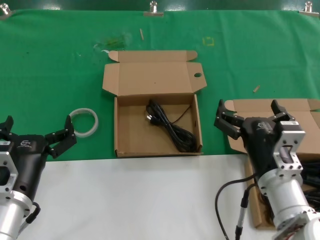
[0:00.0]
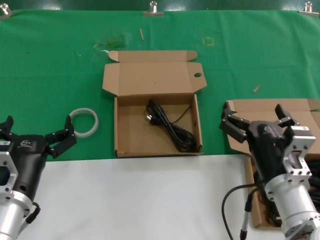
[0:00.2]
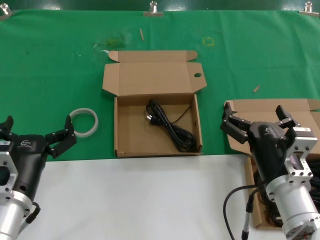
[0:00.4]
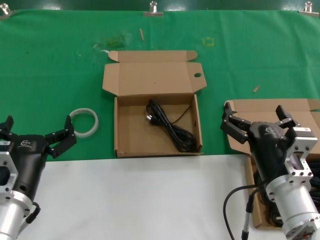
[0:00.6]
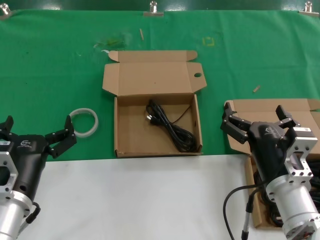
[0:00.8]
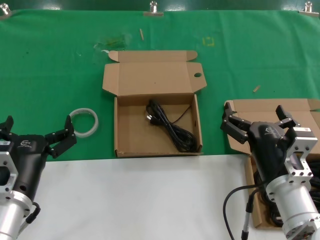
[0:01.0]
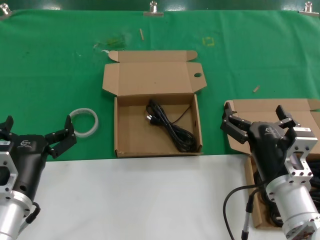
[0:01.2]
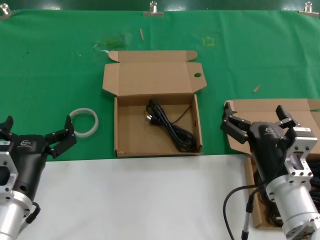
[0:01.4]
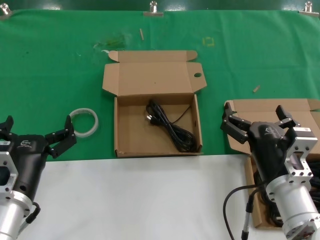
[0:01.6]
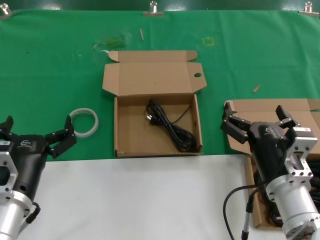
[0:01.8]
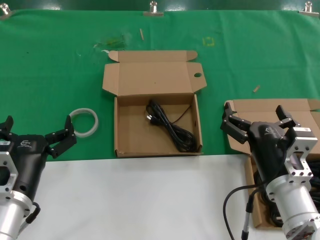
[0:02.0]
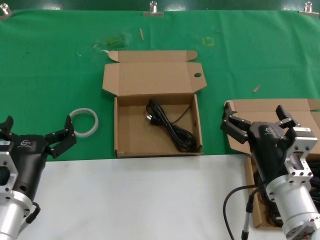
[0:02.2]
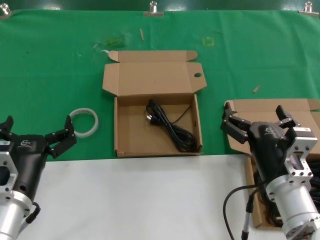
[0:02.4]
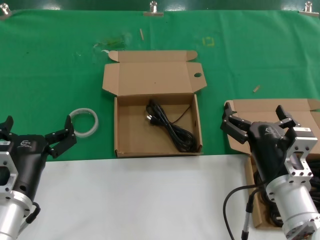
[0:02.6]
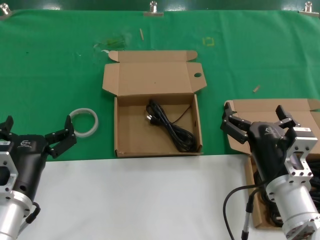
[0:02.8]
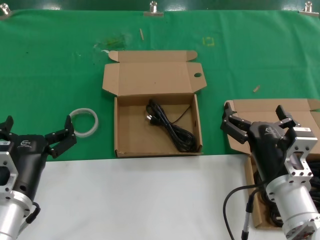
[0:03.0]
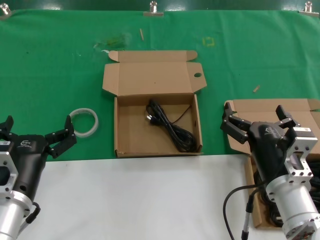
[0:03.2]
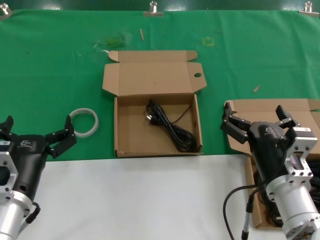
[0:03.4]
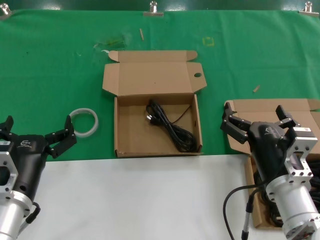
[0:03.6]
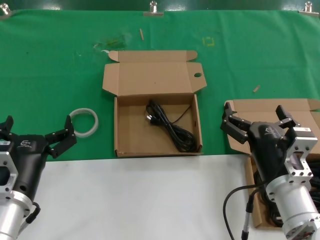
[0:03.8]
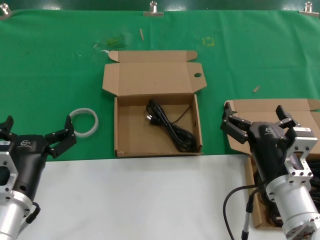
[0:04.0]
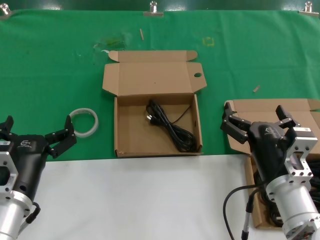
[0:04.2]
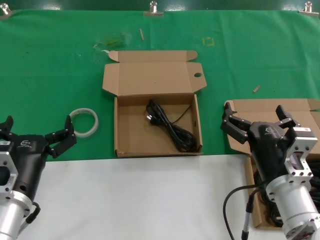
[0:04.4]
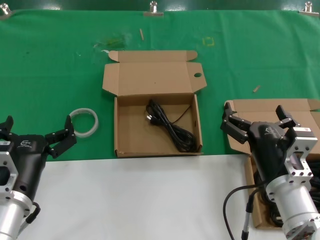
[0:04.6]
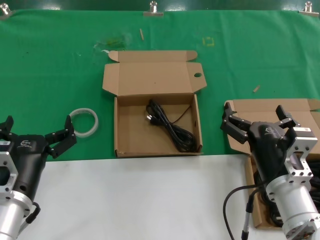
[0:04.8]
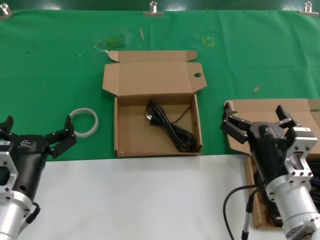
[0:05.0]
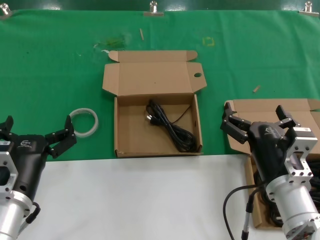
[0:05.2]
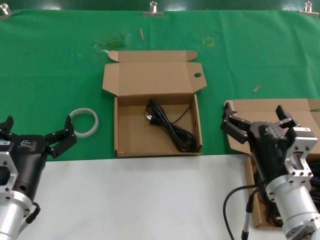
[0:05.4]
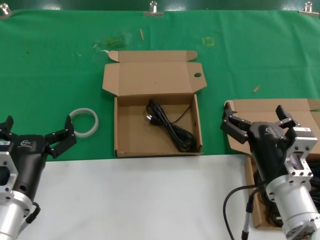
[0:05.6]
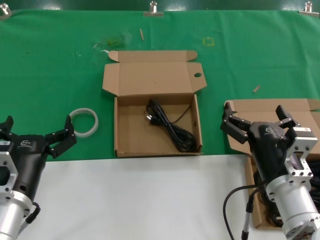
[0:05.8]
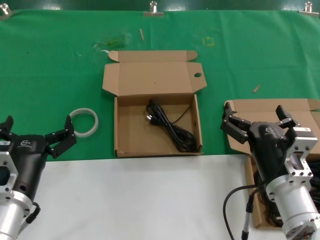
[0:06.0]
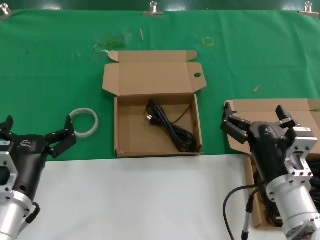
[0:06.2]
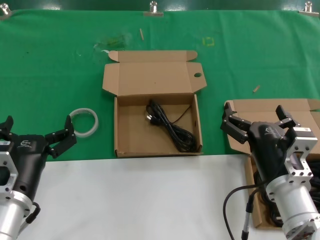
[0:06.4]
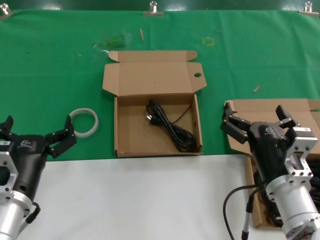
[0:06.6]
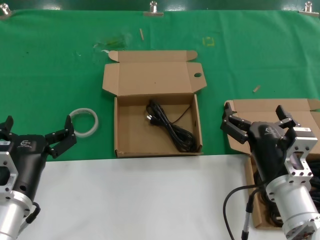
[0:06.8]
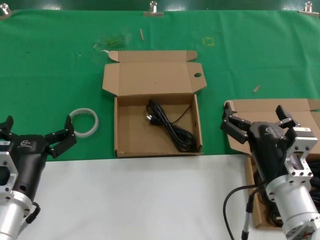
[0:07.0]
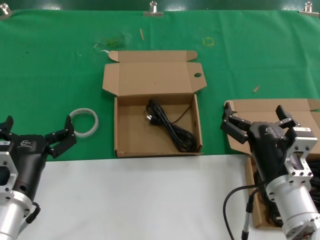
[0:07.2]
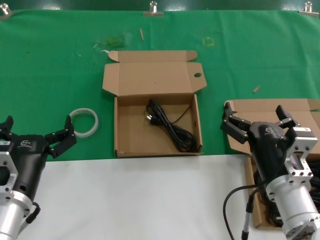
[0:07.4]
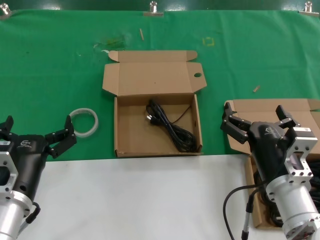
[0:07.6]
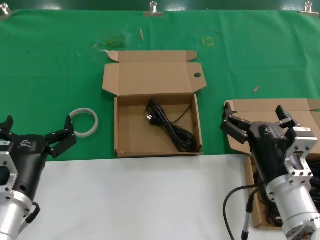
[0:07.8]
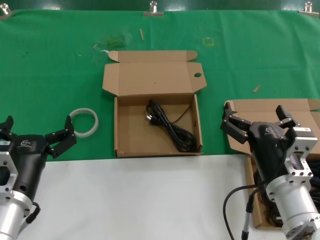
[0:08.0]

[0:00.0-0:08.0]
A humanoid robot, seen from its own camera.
Task of the whole recording: take the parts from the box containing them and put them into an empty box.
0.0 to 1.6 s: The hands stay close to where they were, moving slightly.
1.6 to 8.0 s: Neither hand changes place.

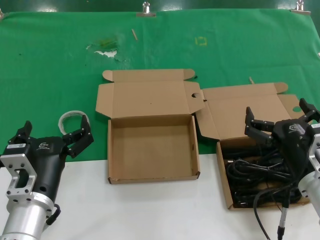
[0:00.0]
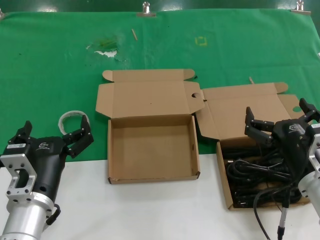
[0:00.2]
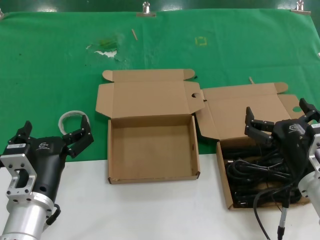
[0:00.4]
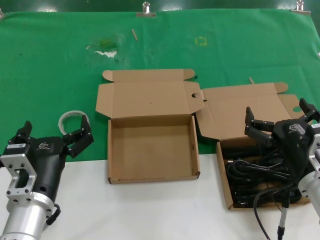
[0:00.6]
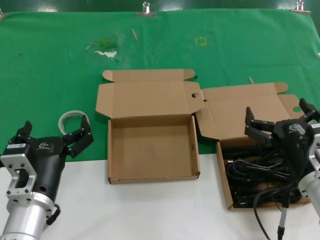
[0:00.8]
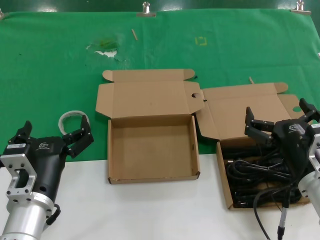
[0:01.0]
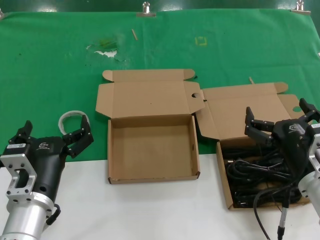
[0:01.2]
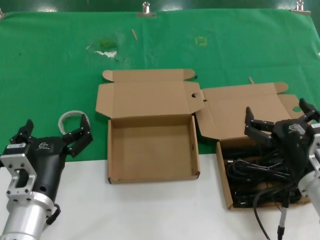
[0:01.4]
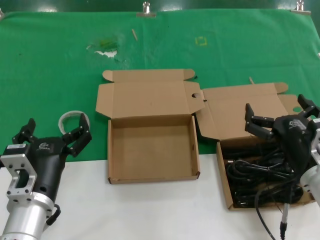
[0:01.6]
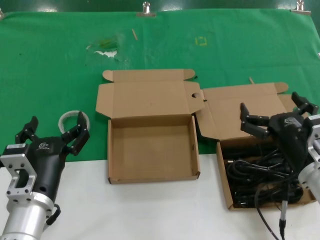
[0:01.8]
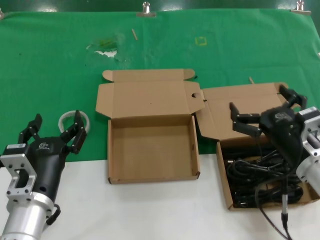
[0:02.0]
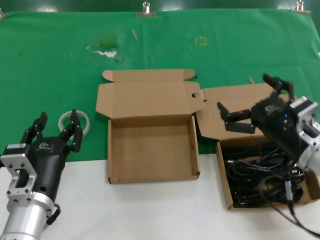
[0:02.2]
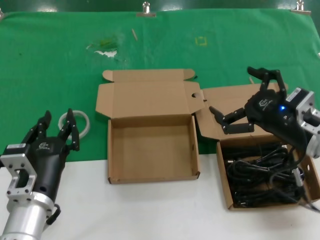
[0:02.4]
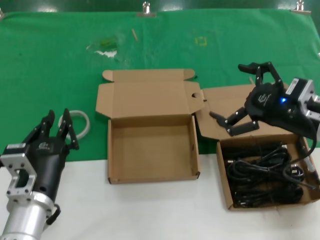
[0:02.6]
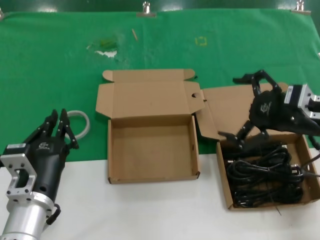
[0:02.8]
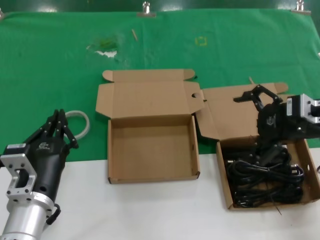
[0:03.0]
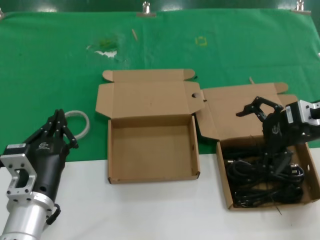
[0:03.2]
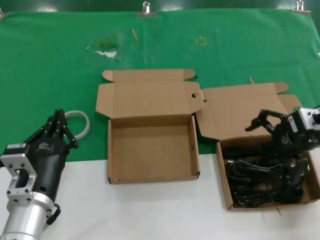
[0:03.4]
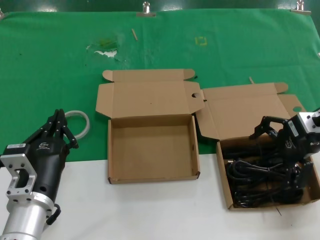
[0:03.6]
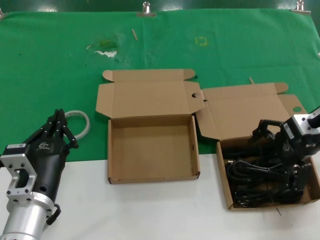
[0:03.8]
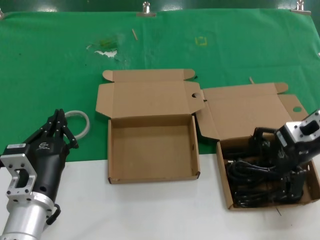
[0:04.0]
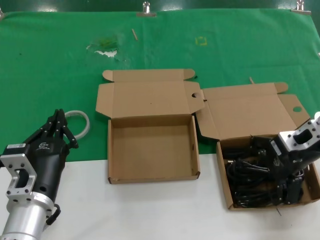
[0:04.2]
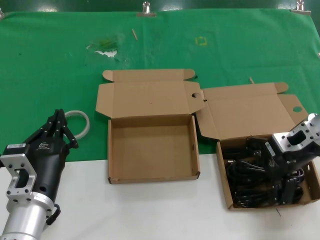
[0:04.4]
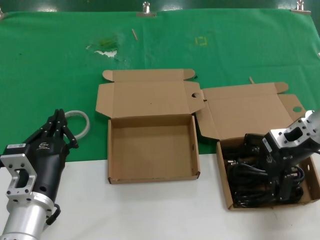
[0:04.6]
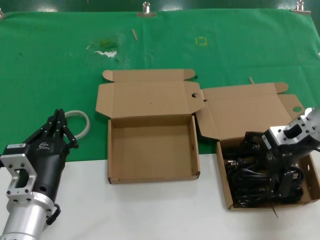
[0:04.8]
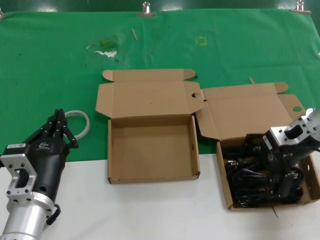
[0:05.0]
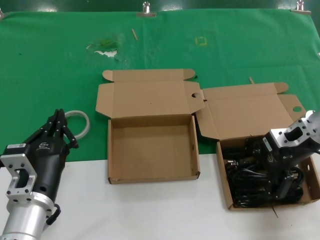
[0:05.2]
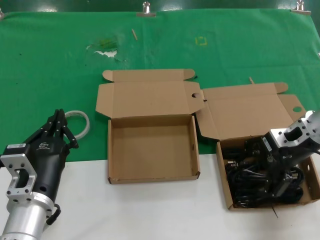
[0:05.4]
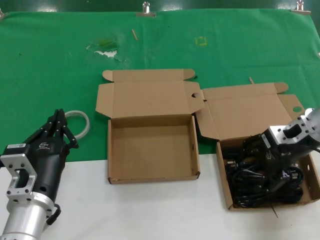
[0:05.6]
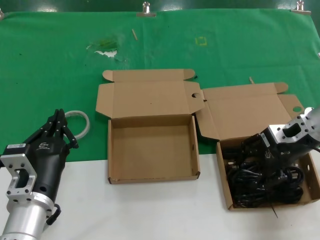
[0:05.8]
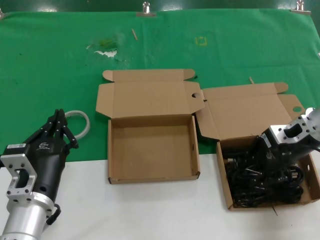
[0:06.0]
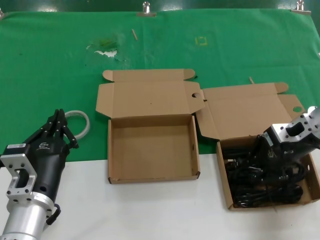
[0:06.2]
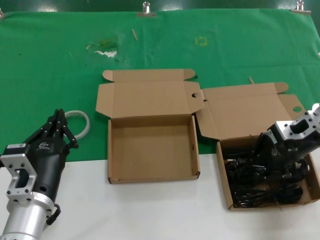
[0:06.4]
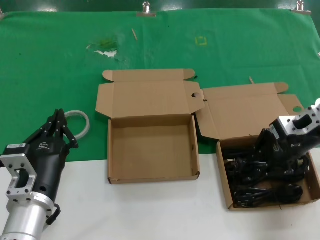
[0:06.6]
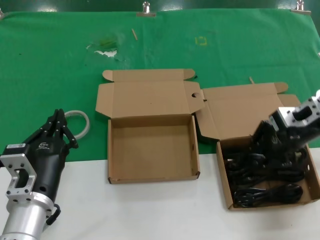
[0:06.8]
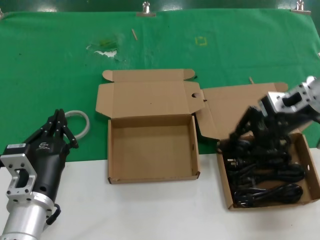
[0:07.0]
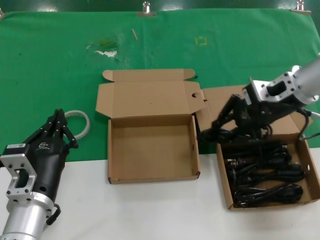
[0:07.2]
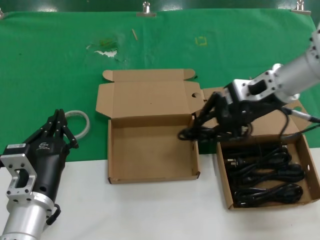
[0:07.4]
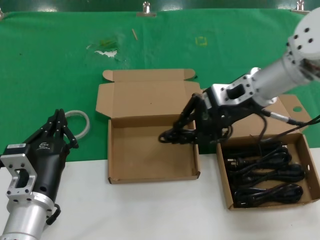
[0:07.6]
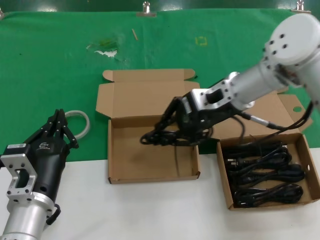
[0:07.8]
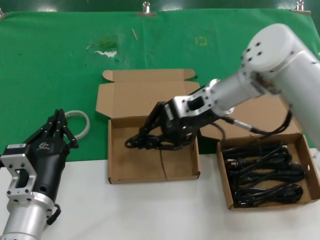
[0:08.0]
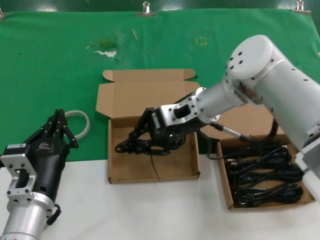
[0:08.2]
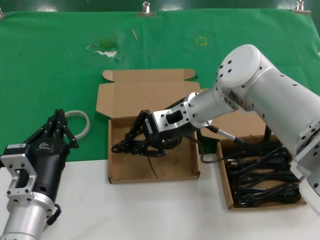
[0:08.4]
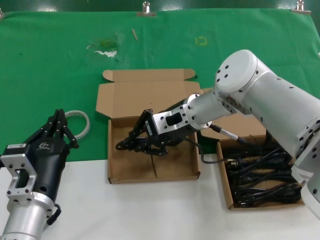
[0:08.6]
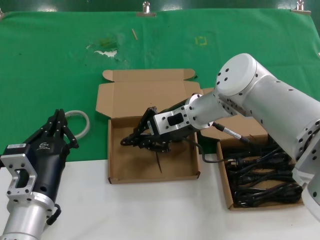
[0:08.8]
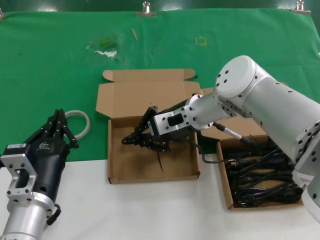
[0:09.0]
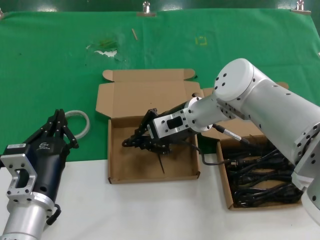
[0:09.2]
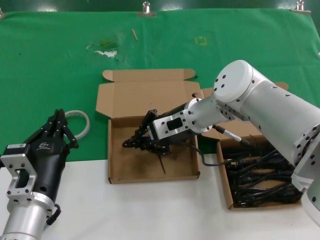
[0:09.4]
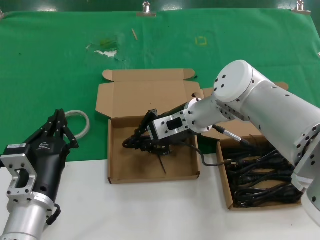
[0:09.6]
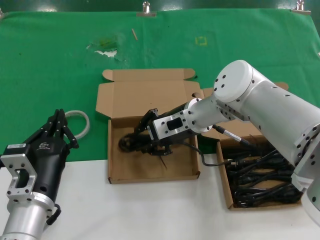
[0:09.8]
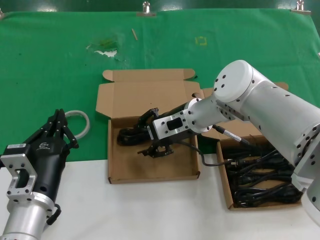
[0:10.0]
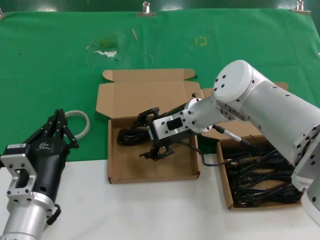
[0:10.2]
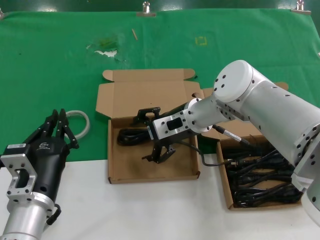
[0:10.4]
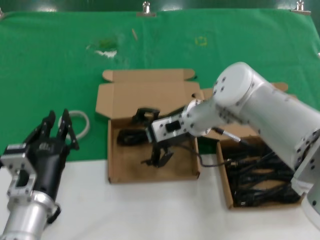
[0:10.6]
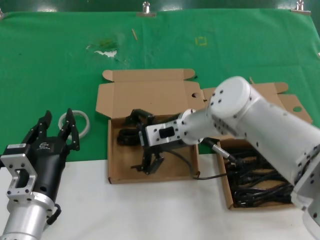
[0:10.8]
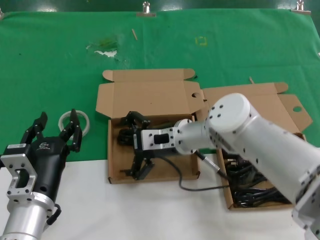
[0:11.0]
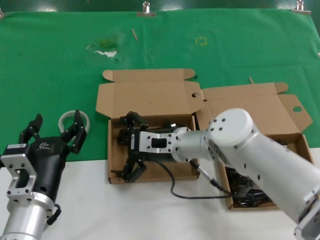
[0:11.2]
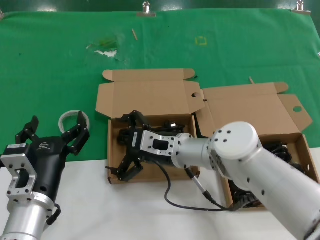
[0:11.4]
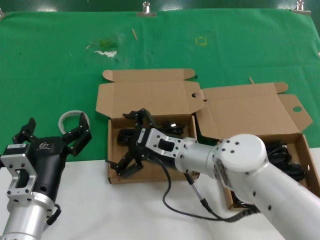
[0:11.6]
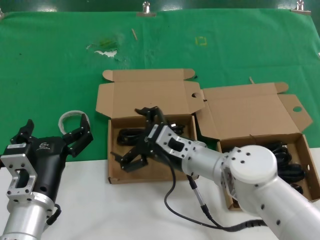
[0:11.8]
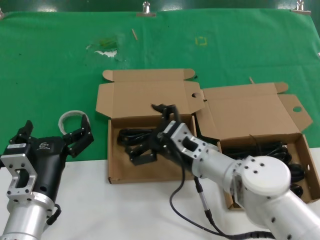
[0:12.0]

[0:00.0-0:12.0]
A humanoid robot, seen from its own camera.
Task of the whole recording: take the parts from the box containing them and put them into an empty box.
Step, 0.0 to 6.0 s: Grasp the data cable.
Step, 6.4 to 9.8 s: Place the data cable in the another box.
0.0 to 1.6 s: Neither hand changes place.
1.6 to 3.0 s: The right hand is displaced upward, forward and to the right by about 20 cm.
3.0 to 4.4 s: The right hand changes place by roughly 5 cm.
4.4 to 6.0 s: There are only small adjustments of the hands.
6.0 to 7.6 s: The right hand goes roughly 15 cm to the left and upward.
7.6 to 9.0 s: The right hand is displaced to the left and downward by roughly 15 cm.
9.0 to 10.4 s: Both hands stay put.
10.4 to 12.0 s: The right hand heads backward and downward, covering some 15 cm.

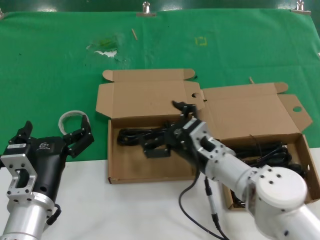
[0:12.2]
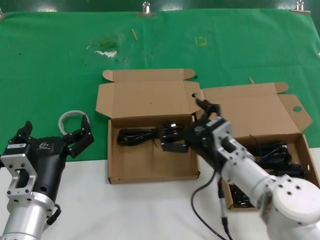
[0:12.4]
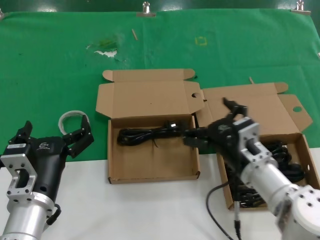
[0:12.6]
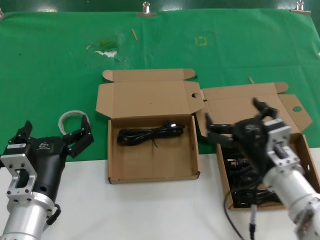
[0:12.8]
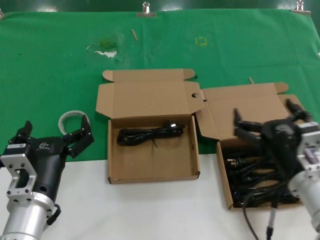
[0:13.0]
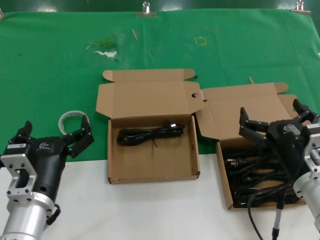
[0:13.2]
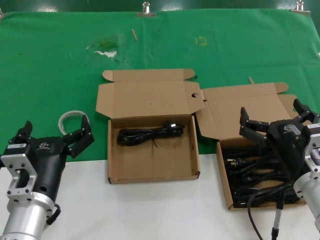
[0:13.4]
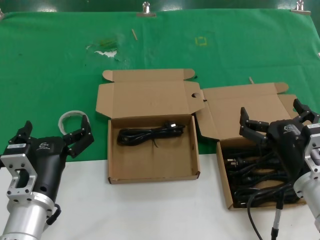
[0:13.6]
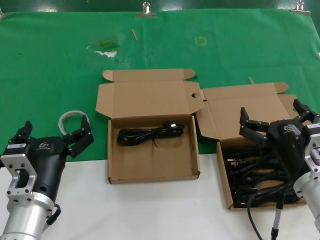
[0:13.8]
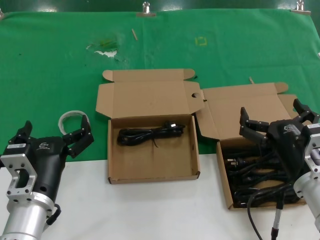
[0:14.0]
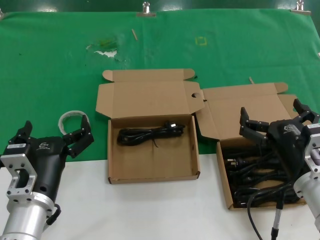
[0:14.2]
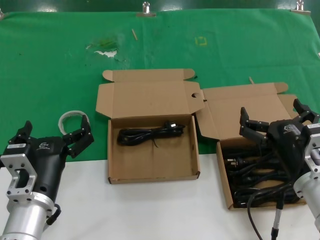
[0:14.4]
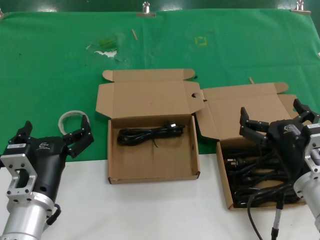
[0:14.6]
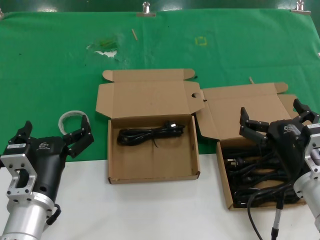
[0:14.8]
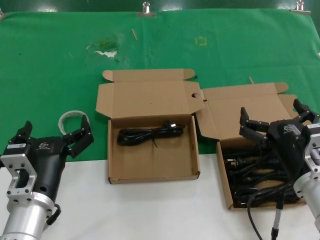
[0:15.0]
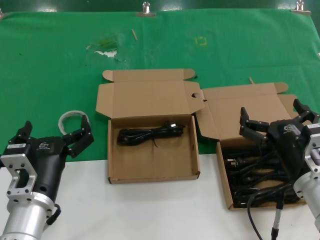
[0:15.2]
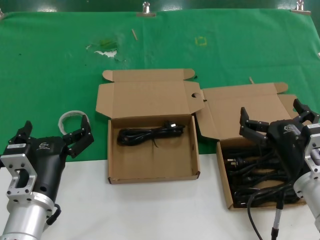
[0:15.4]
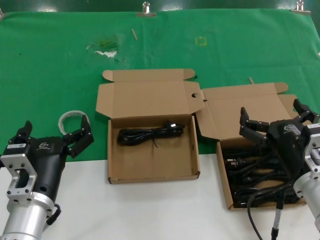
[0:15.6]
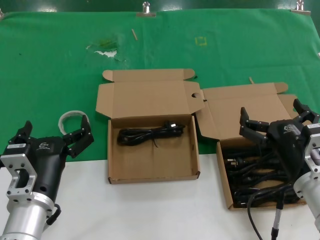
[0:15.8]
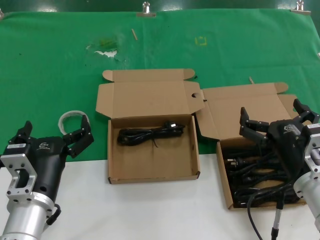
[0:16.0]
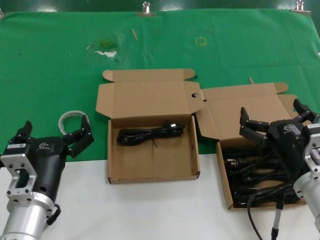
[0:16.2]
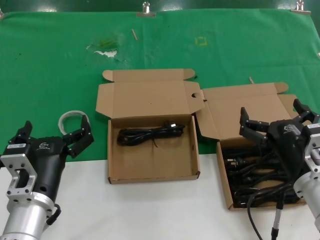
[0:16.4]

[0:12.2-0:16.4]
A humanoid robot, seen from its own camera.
Task of the whole recording: take the parts from the box containing them and put them into an empty box.
12.2 to 13.6 s: The right hand heads to the right and backward, covering approximately 15 cm.
13.6 to 16.4 s: The two hands keep their place.
